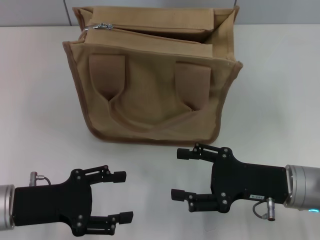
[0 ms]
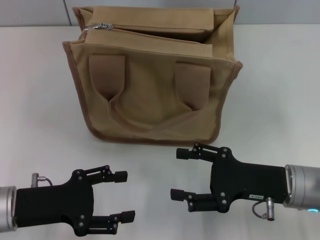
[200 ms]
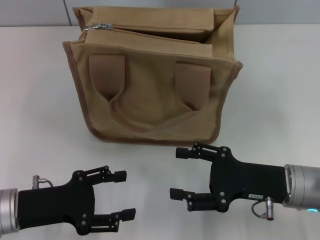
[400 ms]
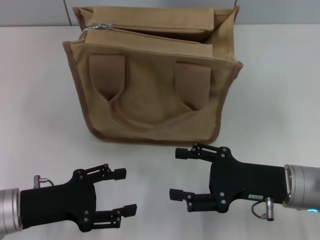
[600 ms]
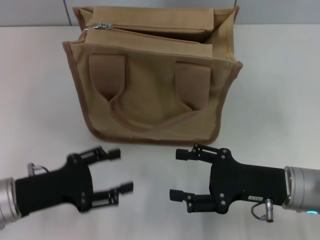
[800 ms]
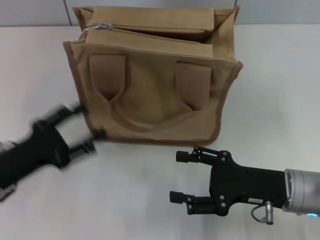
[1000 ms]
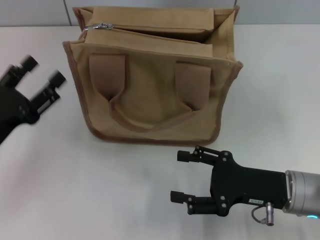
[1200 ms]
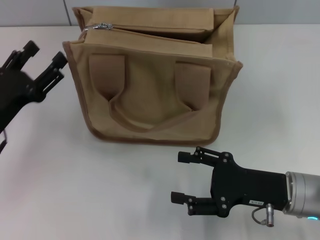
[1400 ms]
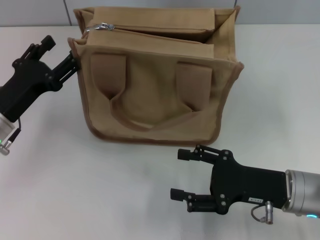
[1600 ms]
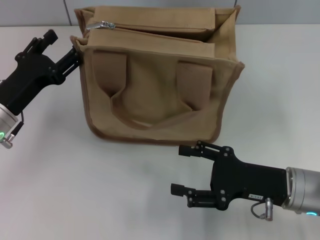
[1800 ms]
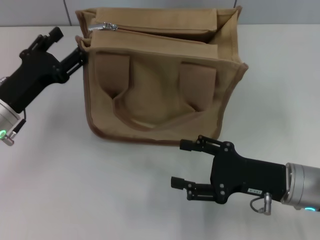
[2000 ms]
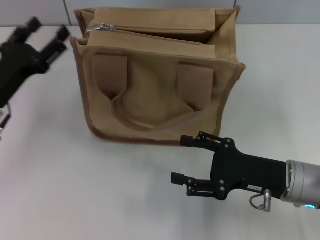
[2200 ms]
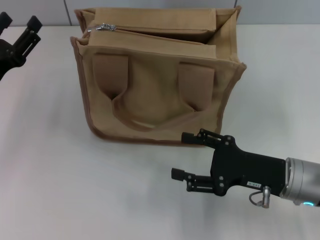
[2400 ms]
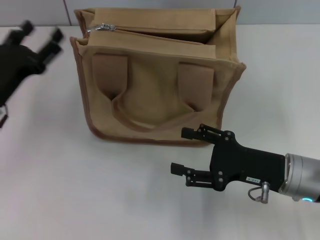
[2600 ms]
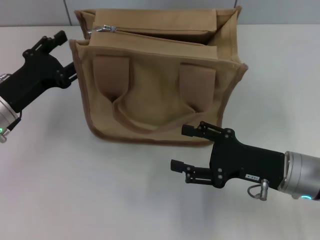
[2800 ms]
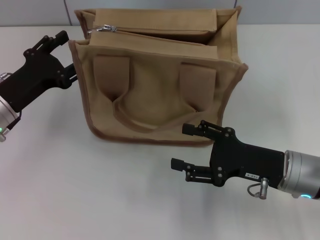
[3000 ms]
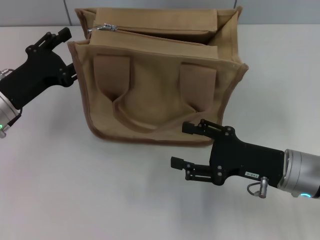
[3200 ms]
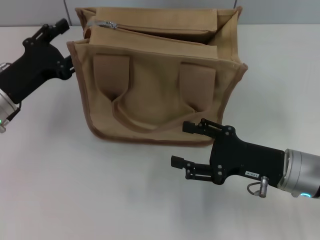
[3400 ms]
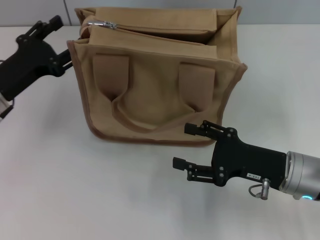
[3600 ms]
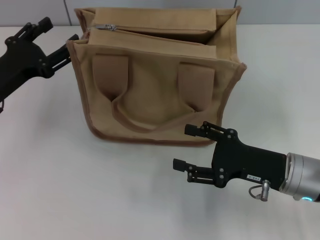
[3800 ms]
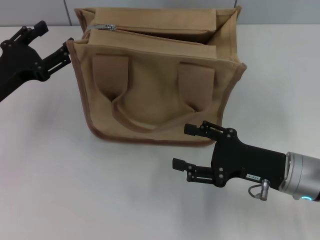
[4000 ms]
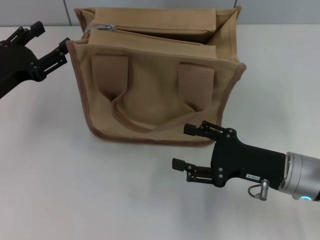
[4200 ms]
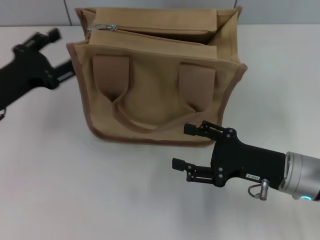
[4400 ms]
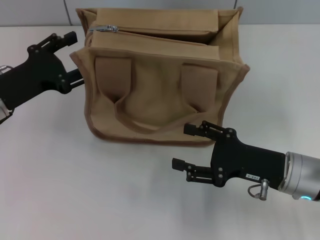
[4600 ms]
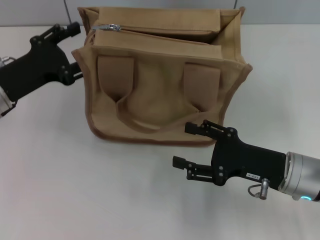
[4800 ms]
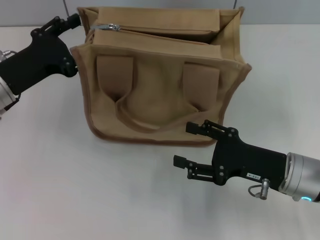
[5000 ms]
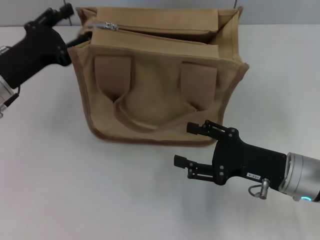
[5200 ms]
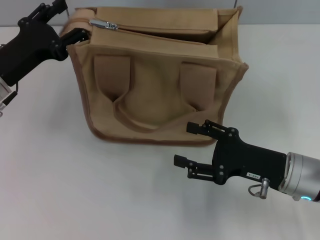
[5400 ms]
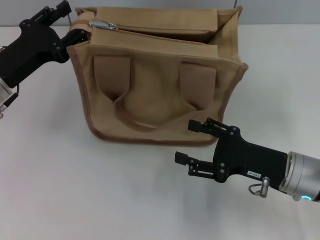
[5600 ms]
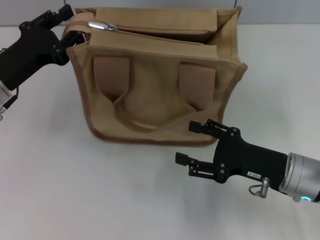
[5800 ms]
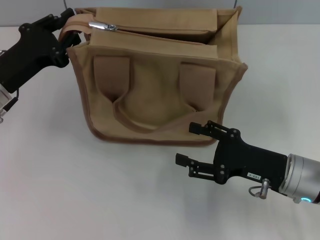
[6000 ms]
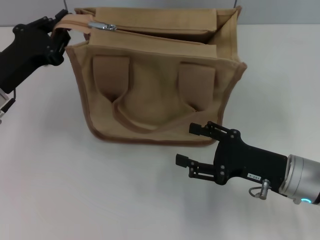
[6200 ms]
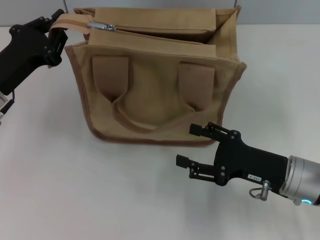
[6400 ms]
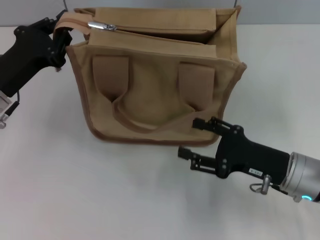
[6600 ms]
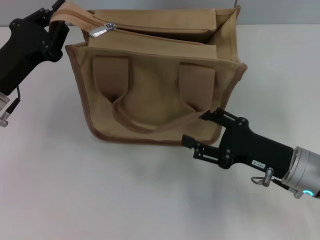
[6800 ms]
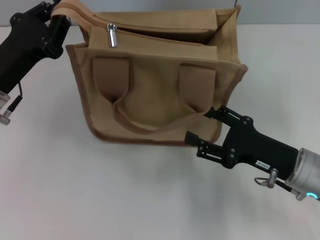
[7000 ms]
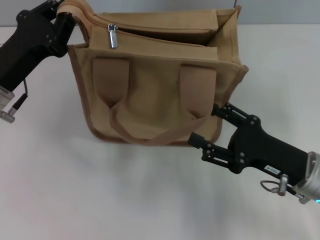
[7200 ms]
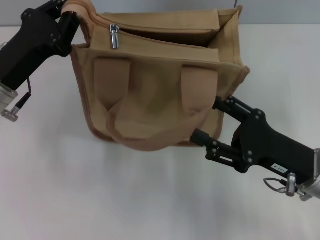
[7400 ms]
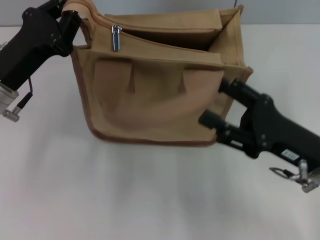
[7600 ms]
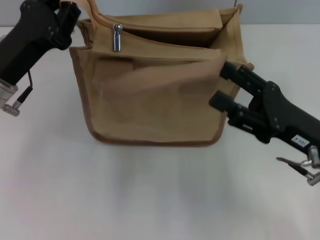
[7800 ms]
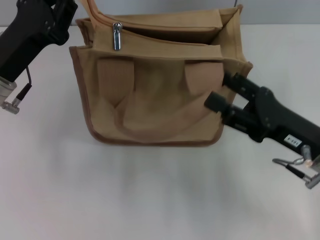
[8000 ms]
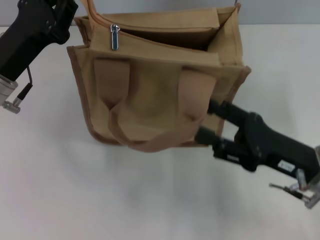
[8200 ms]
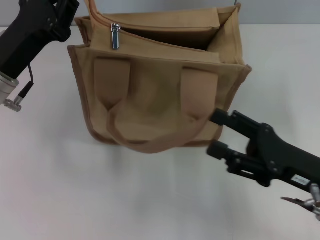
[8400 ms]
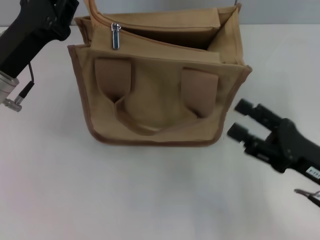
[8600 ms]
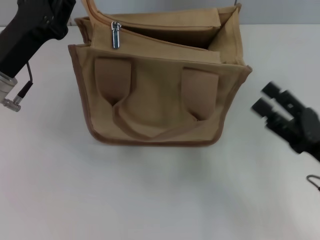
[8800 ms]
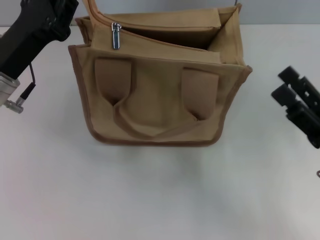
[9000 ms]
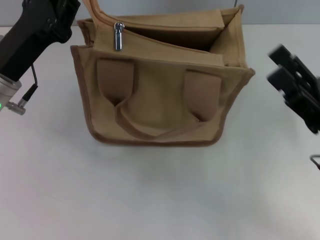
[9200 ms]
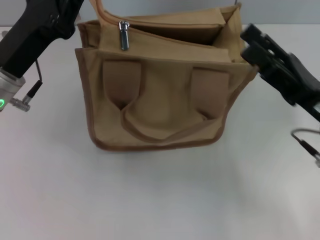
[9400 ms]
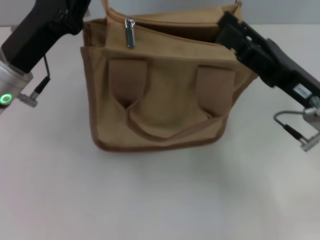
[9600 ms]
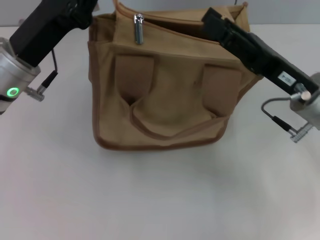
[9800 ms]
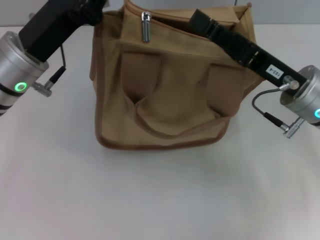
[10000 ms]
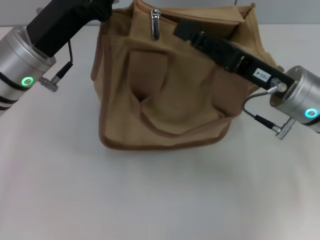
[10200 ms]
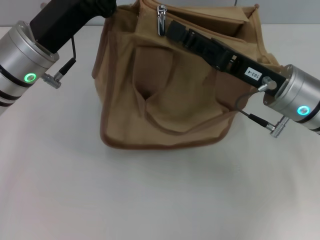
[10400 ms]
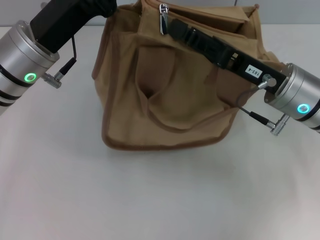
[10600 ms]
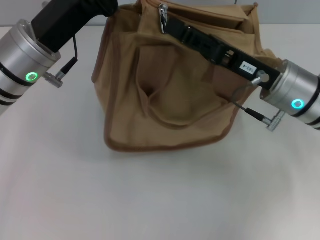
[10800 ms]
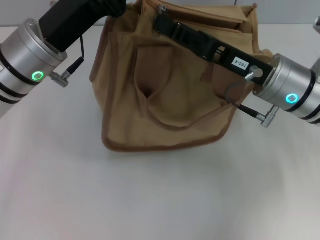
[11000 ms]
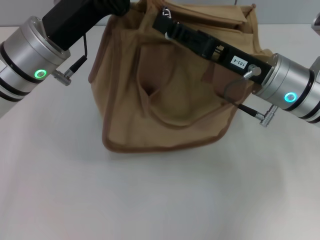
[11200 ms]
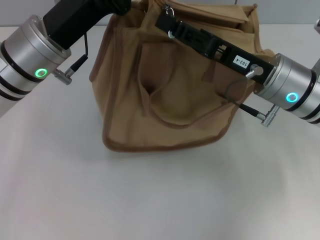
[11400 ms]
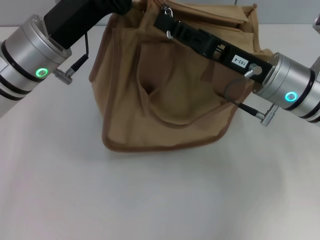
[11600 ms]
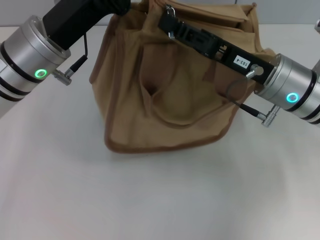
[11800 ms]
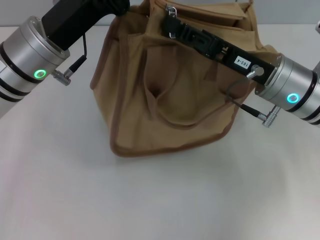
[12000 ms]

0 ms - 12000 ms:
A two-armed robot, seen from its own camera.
0 ms - 1600 ms: The left gripper goes some 10 cm forward.
1600 ms - 4400 ms: The grippers make only small movements.
4400 ms - 6000 ms: The grippers move only a little.
6000 ms - 7600 ms: The left gripper closes up.
7600 ms - 9000 ms: The right gripper shifts by roughly 5 cm.
9000 ms - 10400 ms: The left gripper travels to the right by some 5 cm; the right gripper is displaced forward and to the left by approximately 15 cm, and closes.
10400 ms - 12000 ms: The grippers make only small movements.

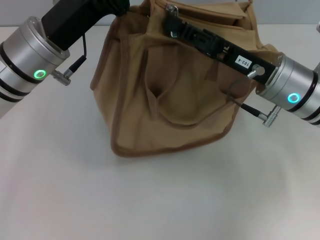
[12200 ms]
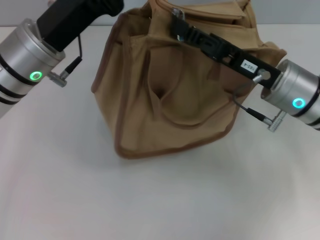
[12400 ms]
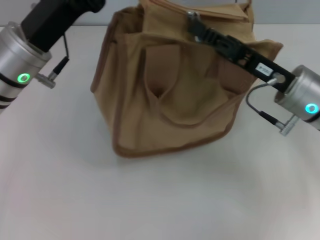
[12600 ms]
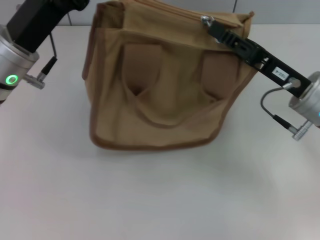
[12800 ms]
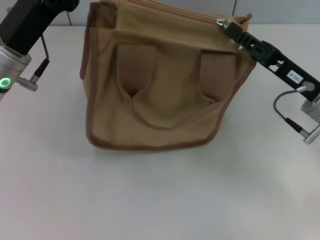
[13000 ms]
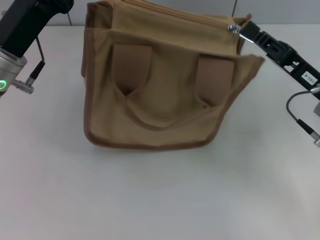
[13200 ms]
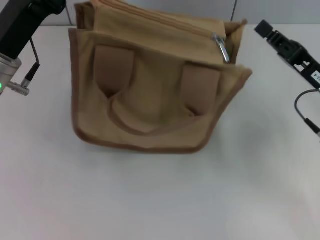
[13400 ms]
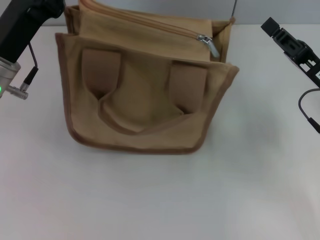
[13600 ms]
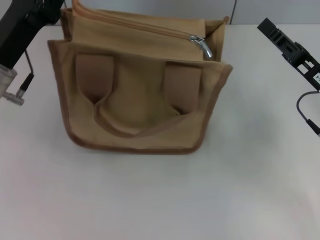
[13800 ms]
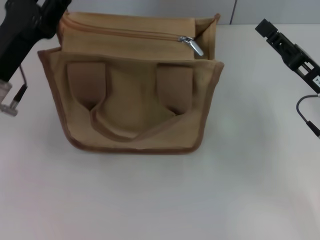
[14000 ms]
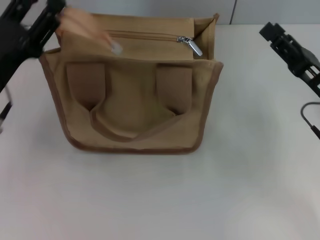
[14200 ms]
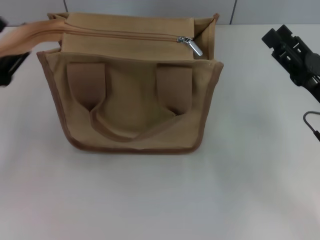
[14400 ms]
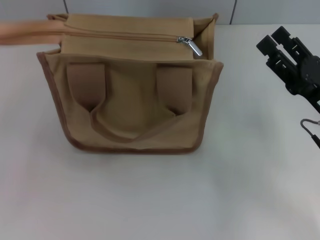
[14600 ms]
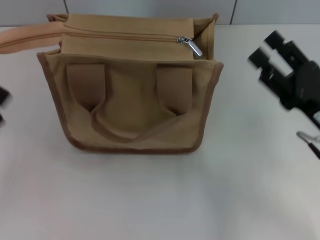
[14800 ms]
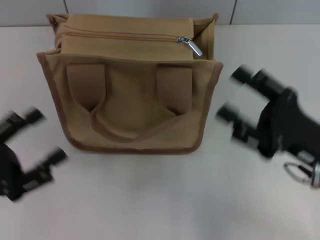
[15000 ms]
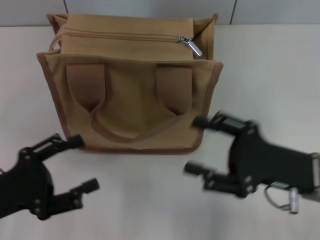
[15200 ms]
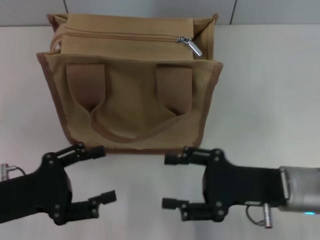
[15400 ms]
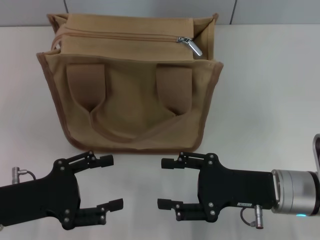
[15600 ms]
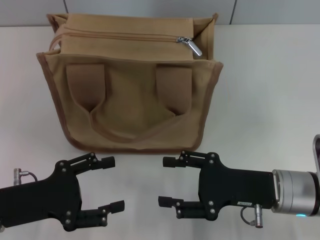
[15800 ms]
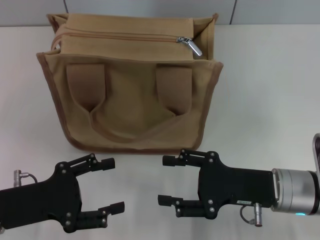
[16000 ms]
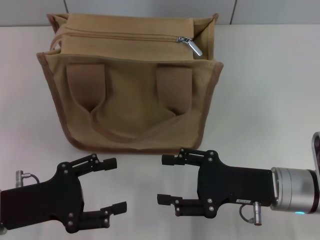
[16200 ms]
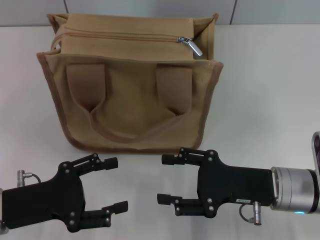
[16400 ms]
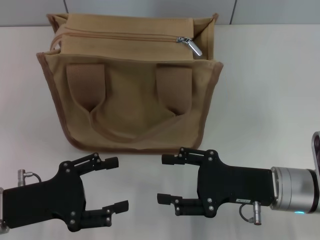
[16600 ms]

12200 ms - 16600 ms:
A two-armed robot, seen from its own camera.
Step, 13400 ms - 14800 ms: Grab the zipper with your left hand.
12200 ms - 13600 ms: The left gripper heads to the left, covering some 5 cm. The right gripper heads to the right, covering some 10 cm.
13600 ms - 15200 ms: The right gripper moves backward, approximately 5 cm, and opens its fingers. Meanwhile the left gripper heads backward, downward and to the left, covering approximately 15 cm, and opens.
15200 ms - 16600 ms: The grippers make only small movements.

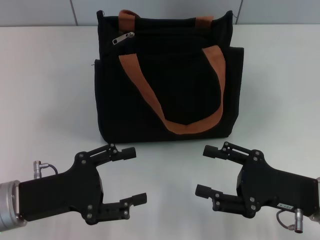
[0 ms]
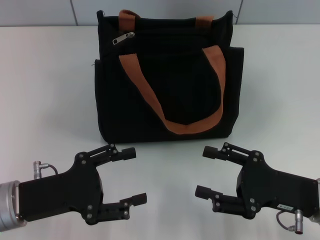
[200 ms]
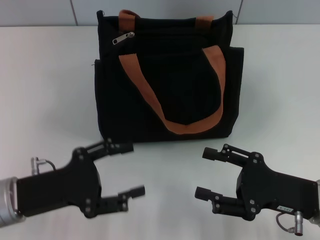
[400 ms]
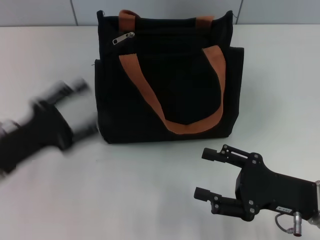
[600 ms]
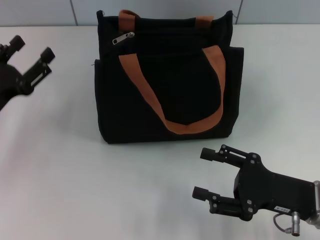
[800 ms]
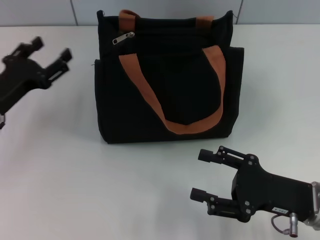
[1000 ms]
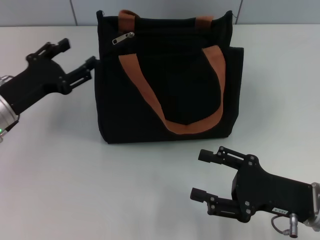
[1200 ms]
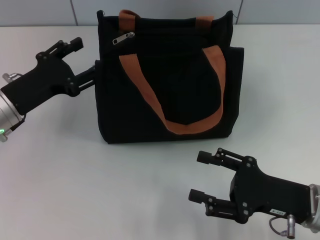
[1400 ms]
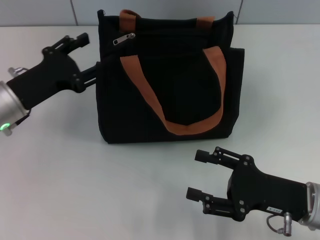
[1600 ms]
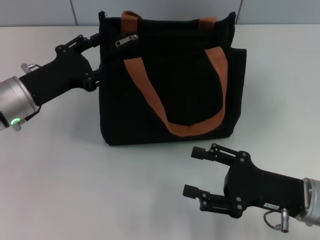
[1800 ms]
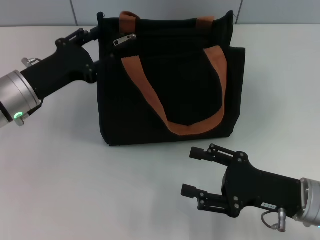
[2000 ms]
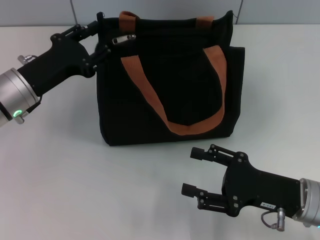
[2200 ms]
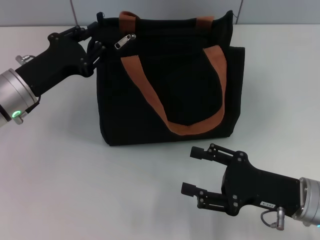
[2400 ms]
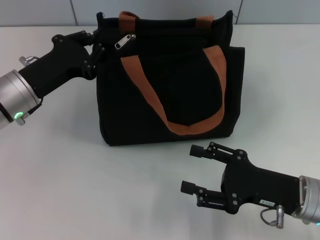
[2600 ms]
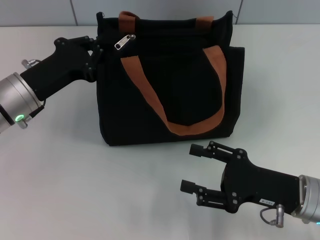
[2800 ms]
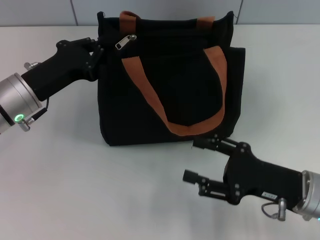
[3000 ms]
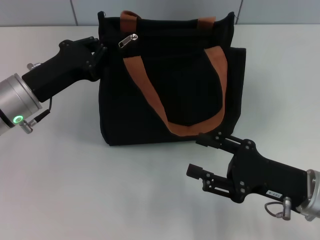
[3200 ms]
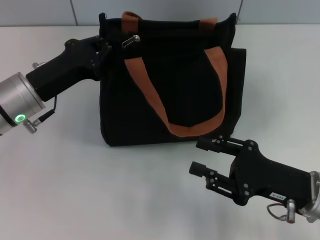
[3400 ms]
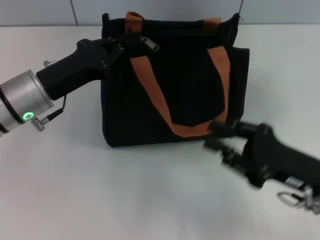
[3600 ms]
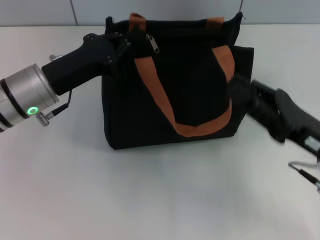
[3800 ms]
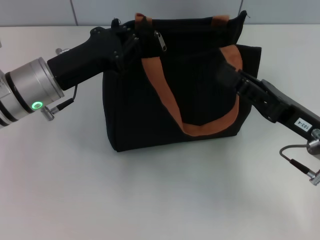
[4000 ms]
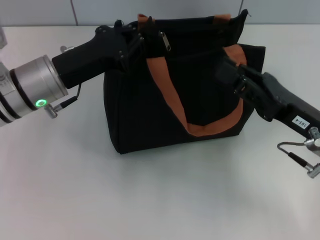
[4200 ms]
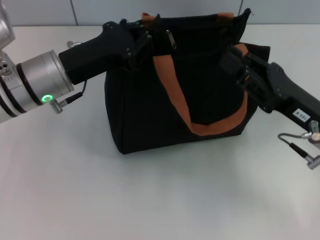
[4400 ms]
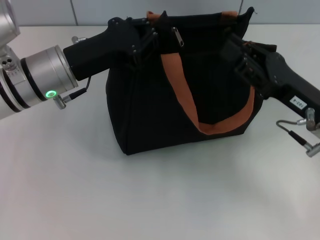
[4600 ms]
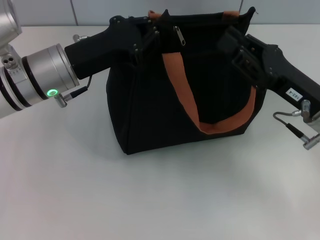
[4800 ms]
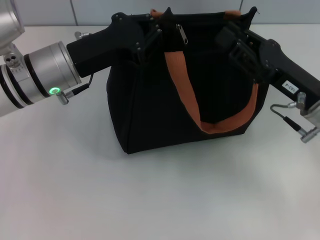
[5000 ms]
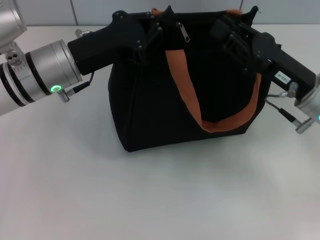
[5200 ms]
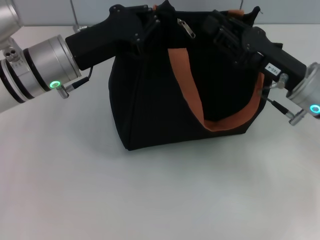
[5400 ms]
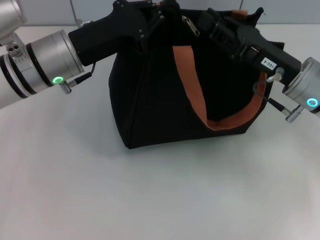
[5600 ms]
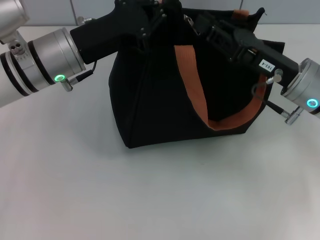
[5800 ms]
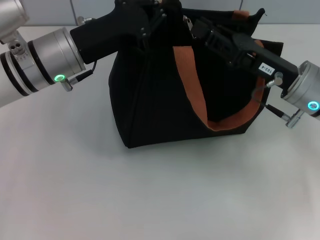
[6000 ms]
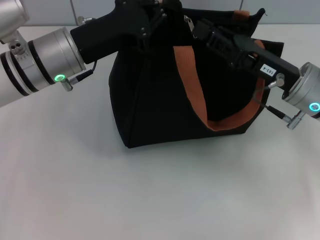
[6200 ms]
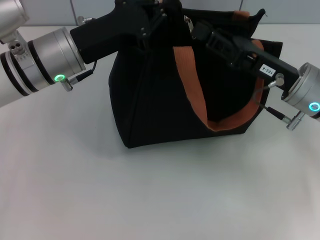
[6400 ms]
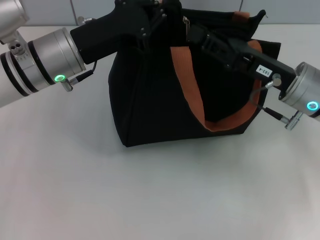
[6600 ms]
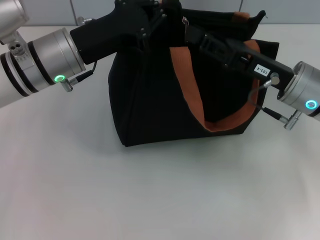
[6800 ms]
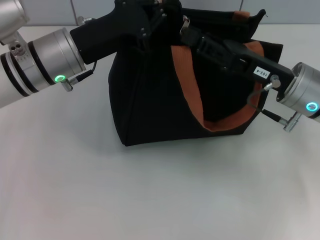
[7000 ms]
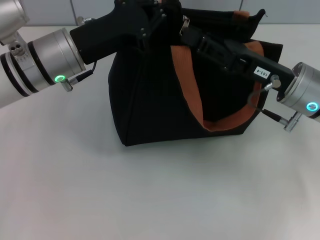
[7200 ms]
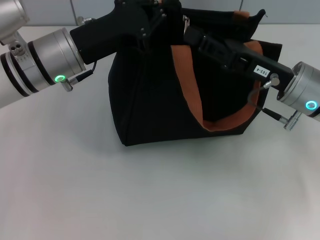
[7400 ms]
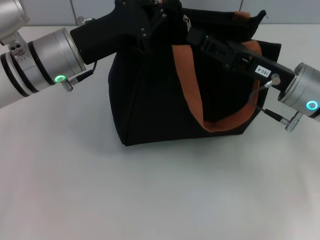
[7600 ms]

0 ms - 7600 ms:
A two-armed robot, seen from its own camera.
0 ms - 1600 ms: The left gripper heads forward, covering some 10 cm.
1600 ms - 3000 ms: The left gripper closes its fingers.
3000 ms - 4600 ms: The right gripper is displaced forward and upward by about 10 cm, and closes up; the left gripper travels to the right by approximately 5 cm.
4600 ms - 6000 ms: The right gripper moves approximately 5 cm.
6000 ms - 7600 ms: The grippers move only a little.
